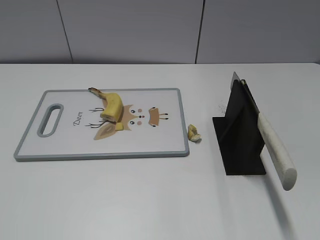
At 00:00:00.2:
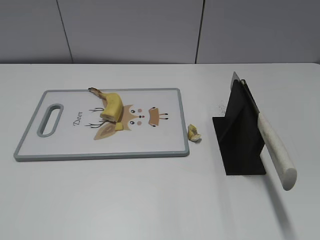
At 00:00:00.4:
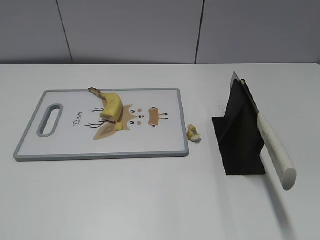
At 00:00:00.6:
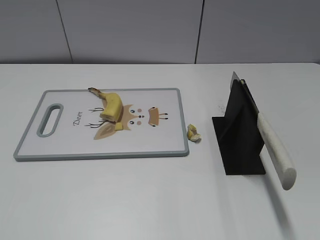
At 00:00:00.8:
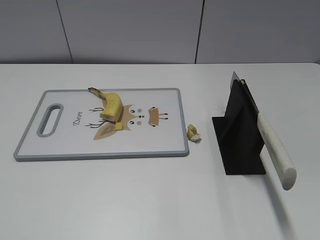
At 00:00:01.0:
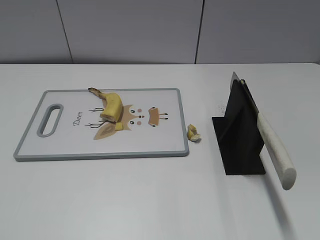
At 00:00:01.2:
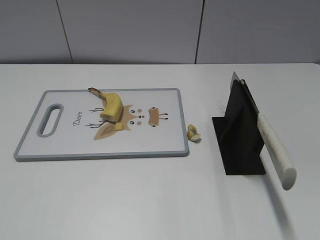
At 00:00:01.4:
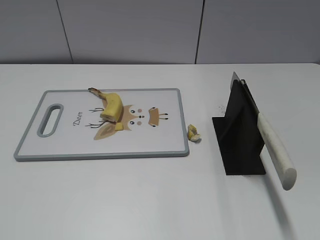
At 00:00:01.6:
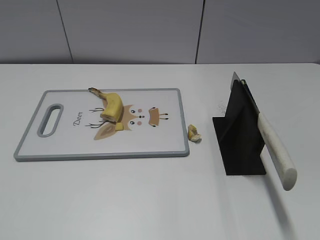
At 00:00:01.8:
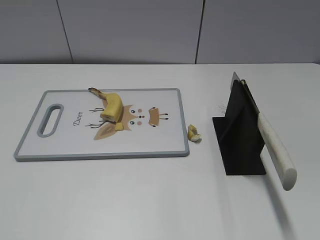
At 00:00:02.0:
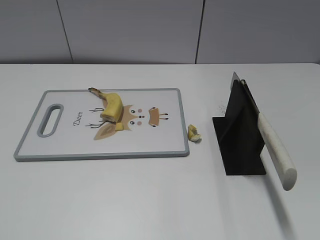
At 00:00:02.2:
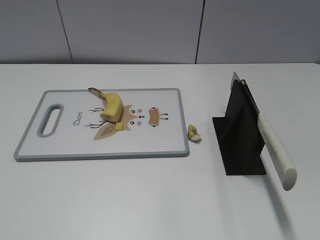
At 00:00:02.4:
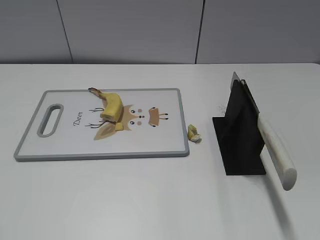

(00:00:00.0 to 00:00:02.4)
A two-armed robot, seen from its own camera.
Task of the whole recording: cut banana.
00:00:01.2 - 00:00:02.4: Both grippers stay about where they are.
